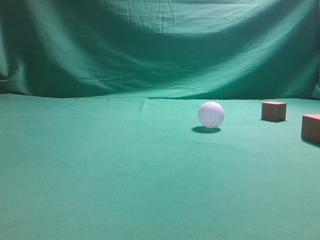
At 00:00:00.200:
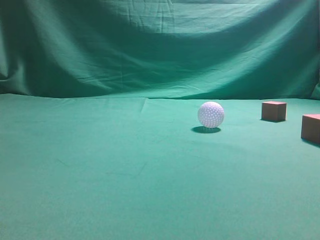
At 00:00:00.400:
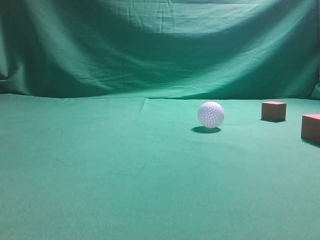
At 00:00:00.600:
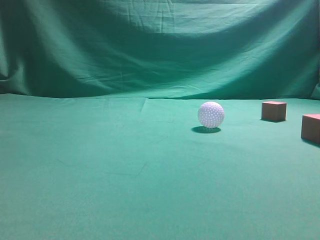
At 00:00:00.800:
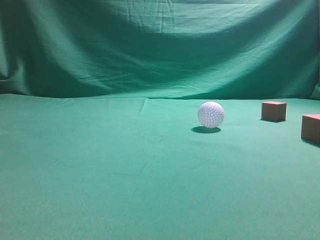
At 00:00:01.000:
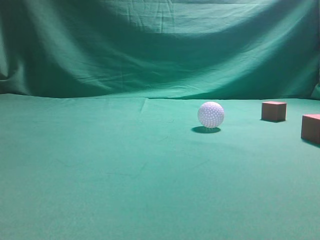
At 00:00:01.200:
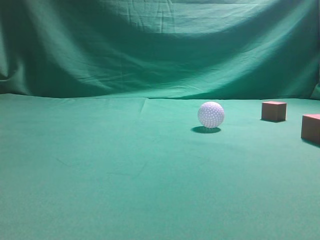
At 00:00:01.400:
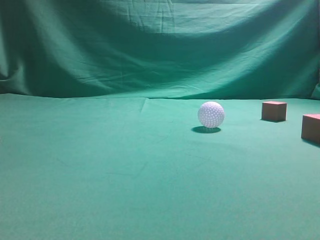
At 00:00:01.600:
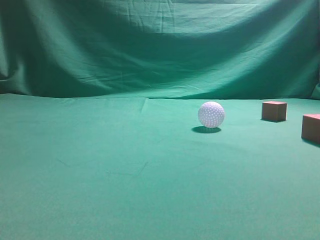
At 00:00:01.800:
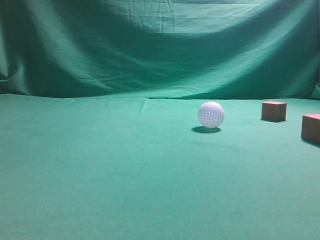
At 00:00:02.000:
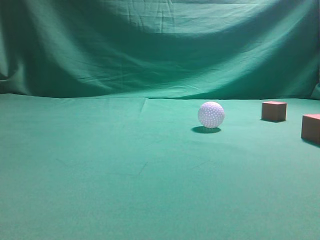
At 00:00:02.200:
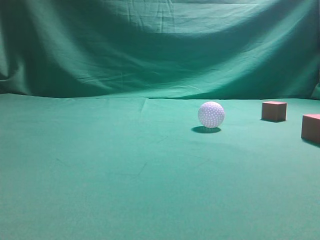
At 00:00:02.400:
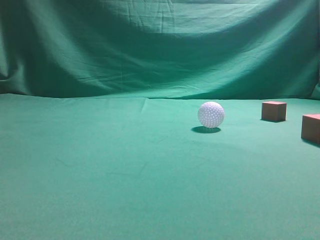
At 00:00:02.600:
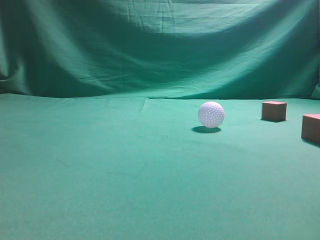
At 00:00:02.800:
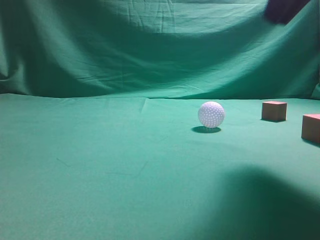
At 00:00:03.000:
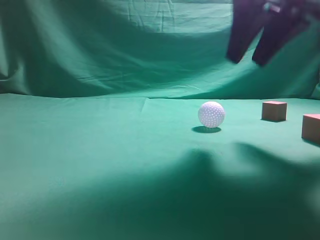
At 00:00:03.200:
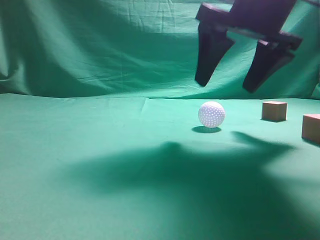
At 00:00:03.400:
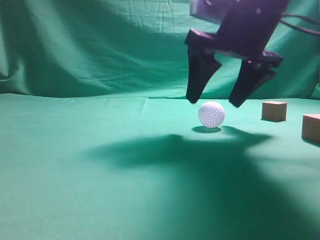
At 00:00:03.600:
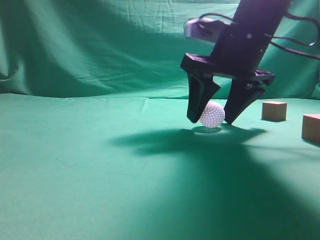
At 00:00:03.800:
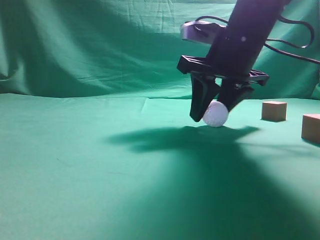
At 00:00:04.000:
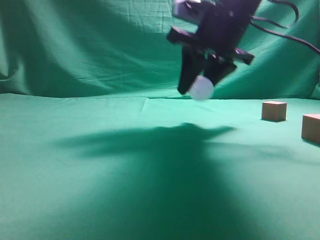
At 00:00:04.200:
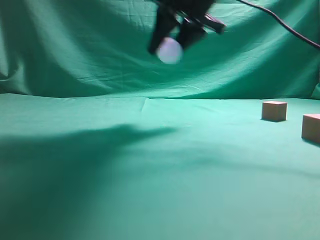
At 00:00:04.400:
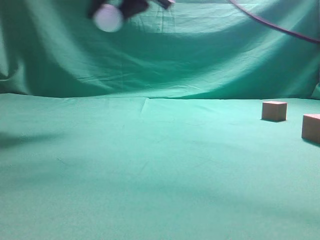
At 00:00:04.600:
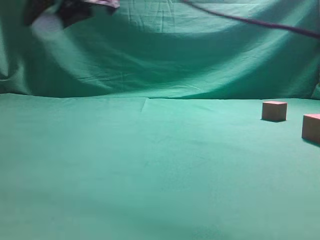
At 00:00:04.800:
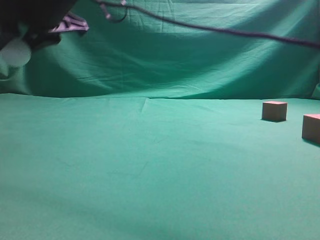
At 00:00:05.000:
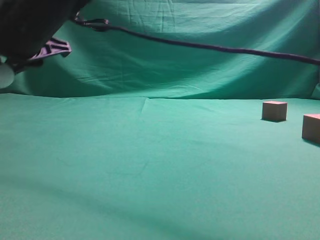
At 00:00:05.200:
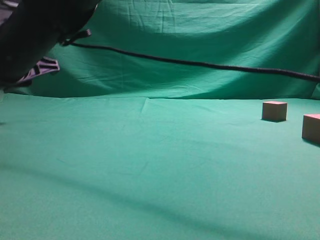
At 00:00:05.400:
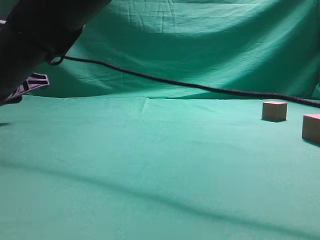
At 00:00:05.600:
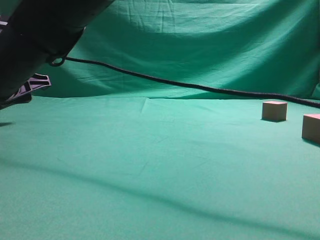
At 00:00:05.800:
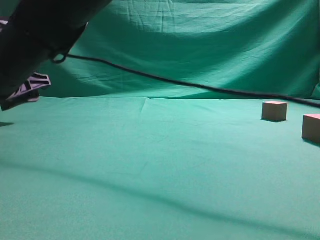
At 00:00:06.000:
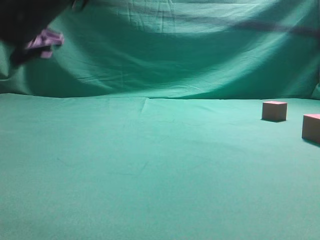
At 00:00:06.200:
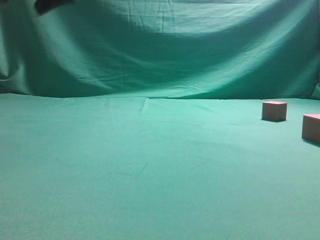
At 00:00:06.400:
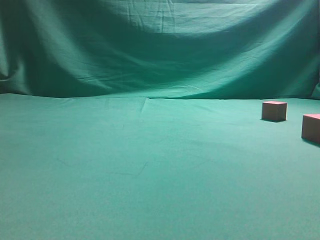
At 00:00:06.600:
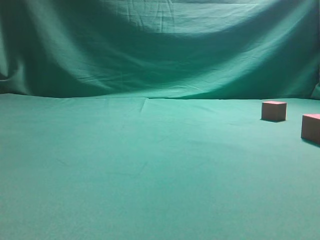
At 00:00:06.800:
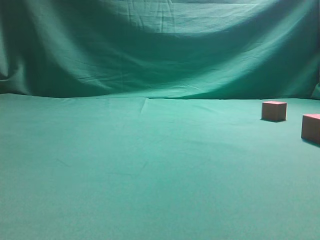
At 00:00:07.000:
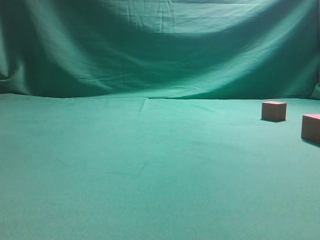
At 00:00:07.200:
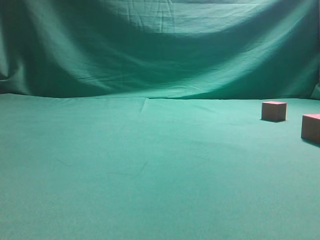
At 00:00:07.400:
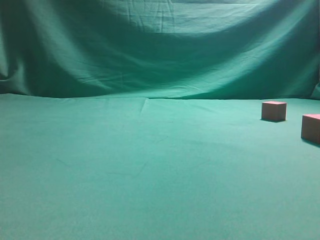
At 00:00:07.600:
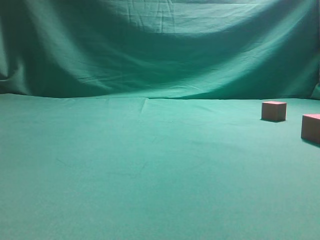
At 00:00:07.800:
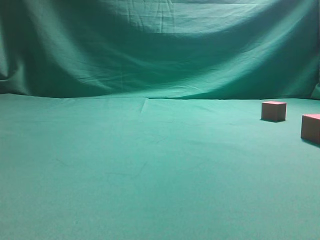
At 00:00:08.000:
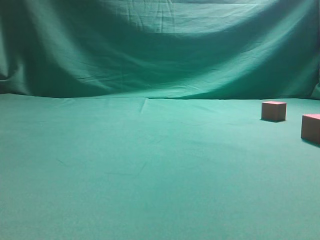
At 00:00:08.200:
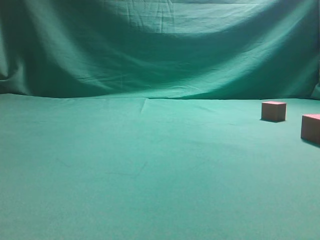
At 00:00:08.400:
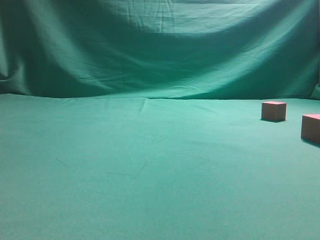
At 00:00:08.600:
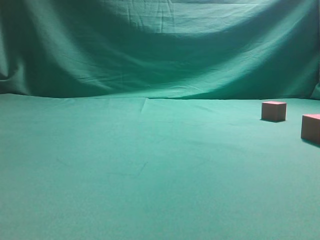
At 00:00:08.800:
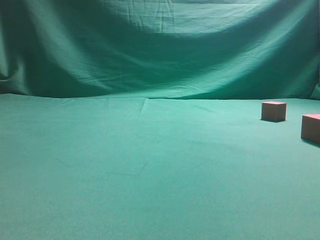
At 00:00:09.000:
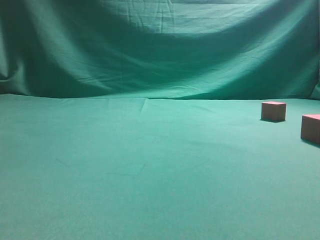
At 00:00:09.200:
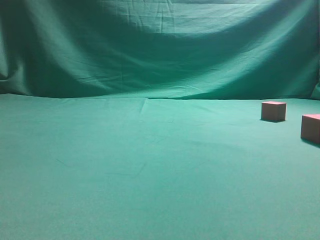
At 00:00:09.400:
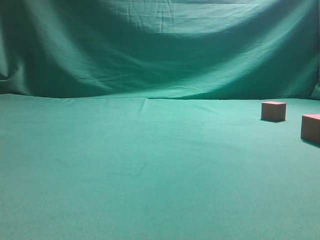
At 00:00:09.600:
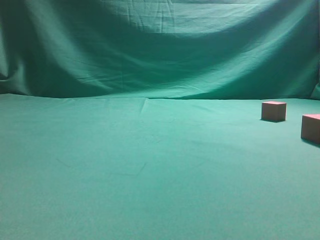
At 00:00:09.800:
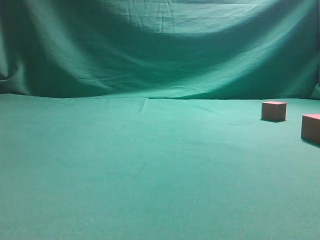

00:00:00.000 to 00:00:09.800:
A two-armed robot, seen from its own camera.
Step, 00:00:00.000 to 00:00:04.000: Grasp the spherical object on the right side.
00:00:01.400 to 00:00:02.800: The right gripper goes roughly 25 cm forward and to the left.
00:00:02.800 to 00:00:04.200: The right gripper shifts some 15 cm forward and to the left, and opens and closes again.
00:00:04.200 to 00:00:05.600: The right gripper heads to the left and downward, covering about 30 cm, and opens up.
00:00:05.600 to 00:00:07.000: The right gripper heads upward and to the right, covering some 50 cm, and closes its fingers.
